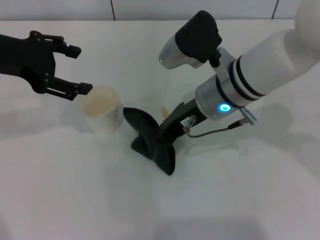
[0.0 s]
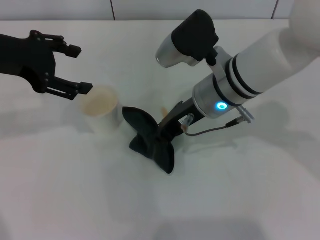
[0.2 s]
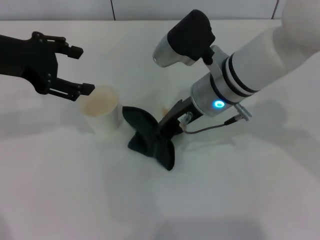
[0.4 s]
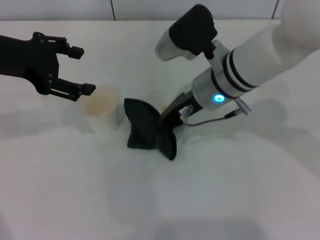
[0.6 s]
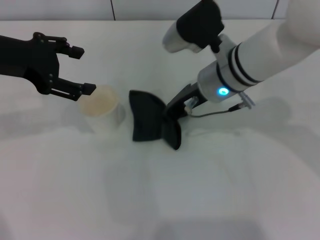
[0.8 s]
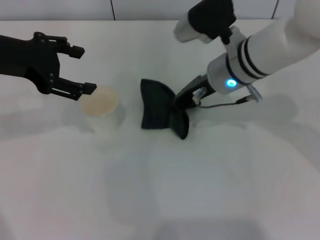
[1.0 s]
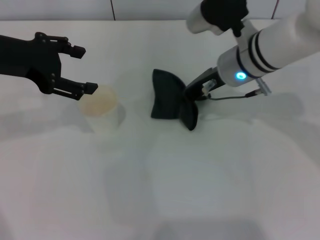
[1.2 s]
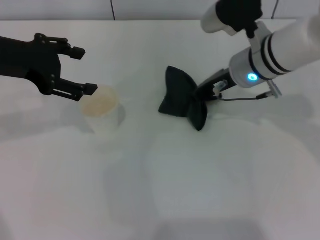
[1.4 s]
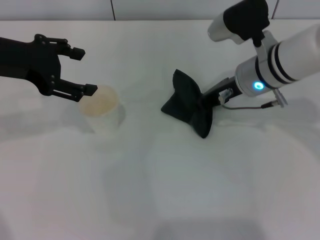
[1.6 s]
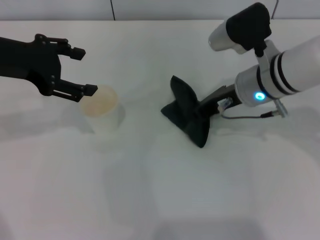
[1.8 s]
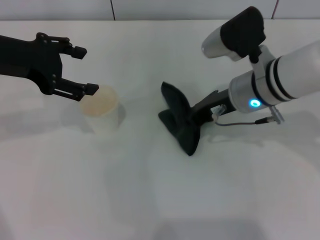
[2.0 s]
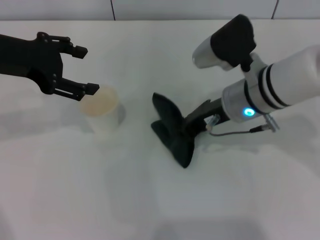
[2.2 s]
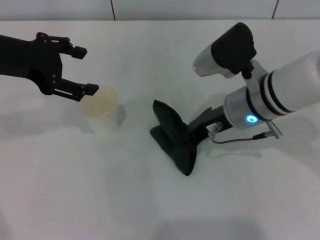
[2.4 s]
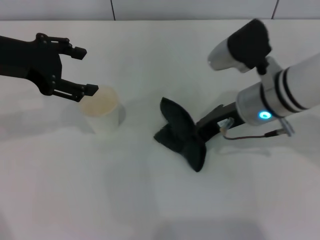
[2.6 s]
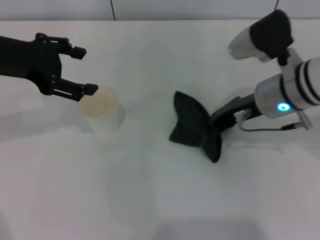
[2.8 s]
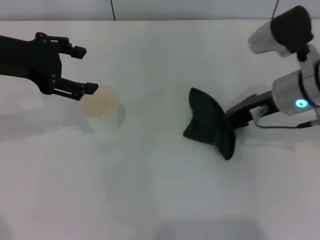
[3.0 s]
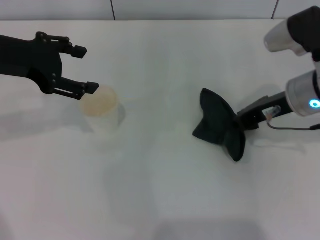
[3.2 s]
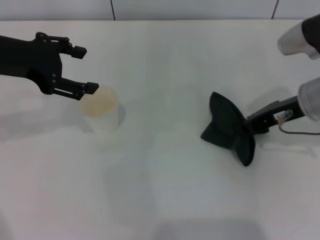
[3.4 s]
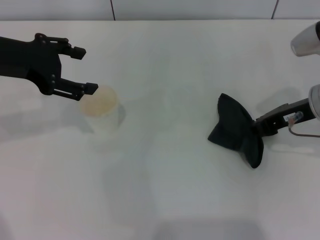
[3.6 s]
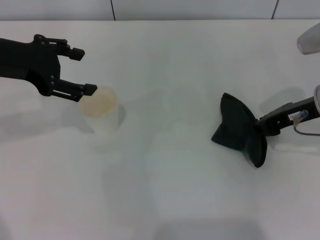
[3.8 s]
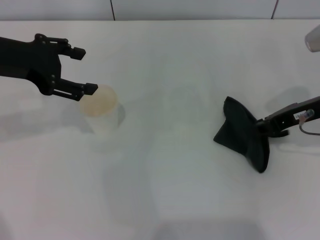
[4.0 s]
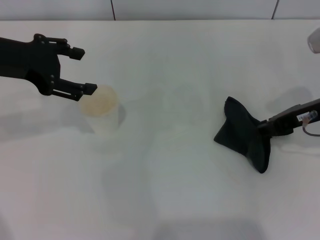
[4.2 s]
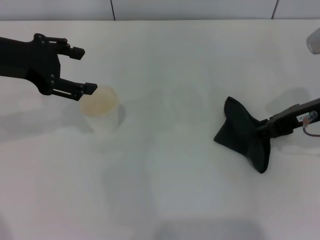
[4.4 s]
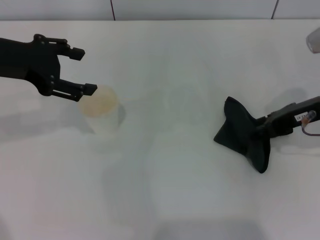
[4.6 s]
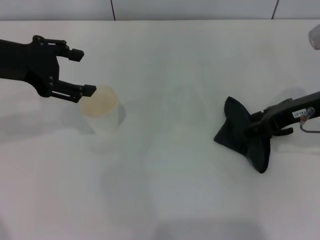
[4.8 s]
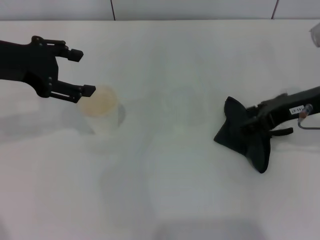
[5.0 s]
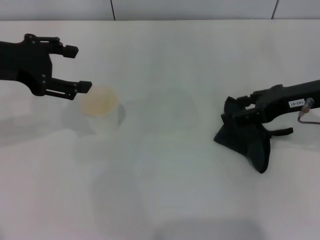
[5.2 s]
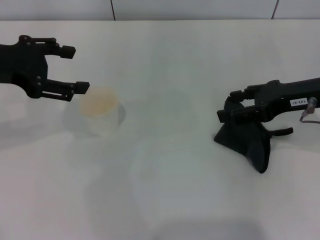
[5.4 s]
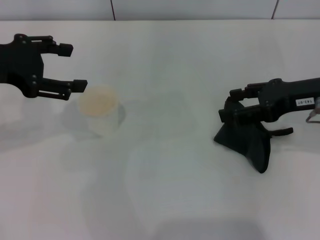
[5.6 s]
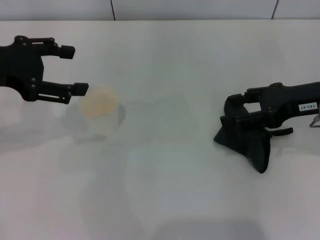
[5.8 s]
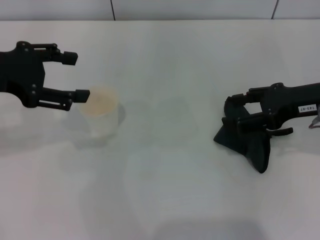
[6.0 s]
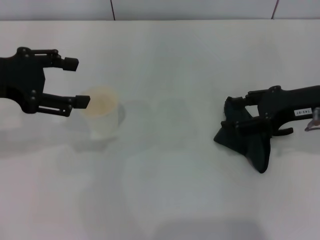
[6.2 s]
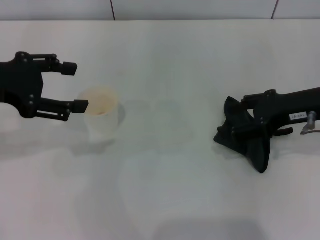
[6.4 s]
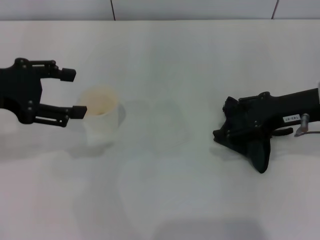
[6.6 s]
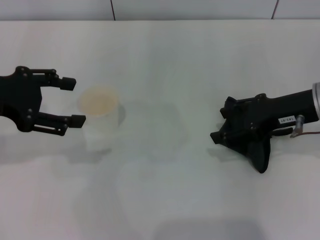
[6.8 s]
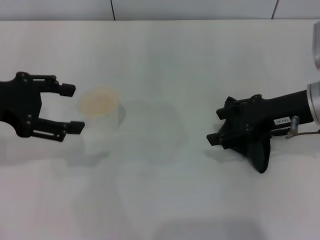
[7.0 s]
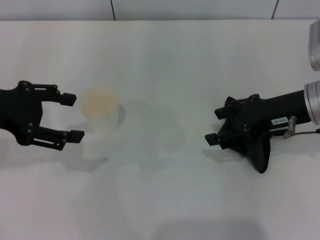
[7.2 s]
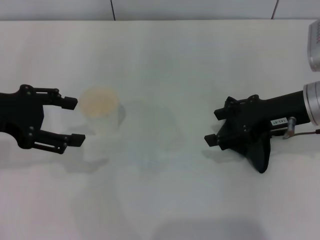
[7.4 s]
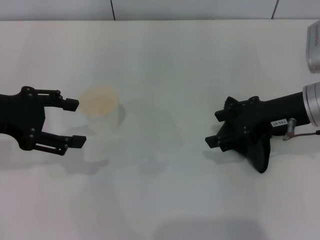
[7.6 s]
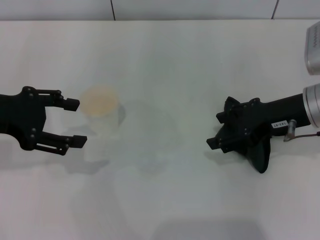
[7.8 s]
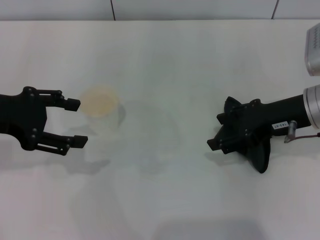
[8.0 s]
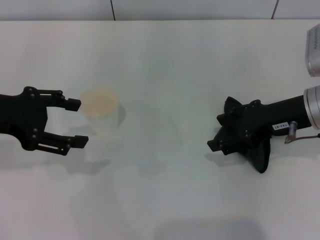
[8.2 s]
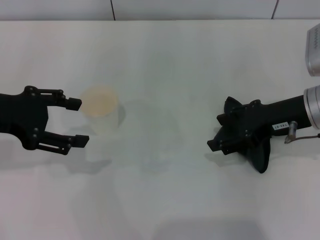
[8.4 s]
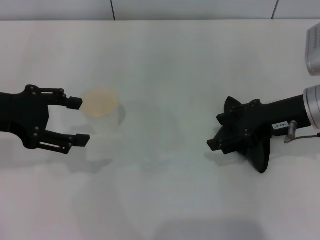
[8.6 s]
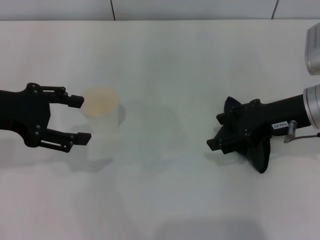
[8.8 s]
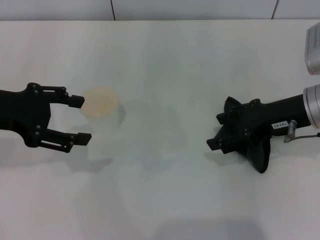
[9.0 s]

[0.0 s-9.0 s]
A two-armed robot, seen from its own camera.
Step, 0.0 to 3.8 s: Wipe the stains off the table with the right gripper.
Step, 4.0 to 5.2 s: Place the rag on the table with the right gripper.
0.0 to 1.6 s: The right gripper goes approximately 5 cm to the right.
1.6 to 3.0 s: The right gripper moves some 5 cm.
3.0 to 4.4 s: The right gripper travels to the right by about 5 cm.
4.4 to 6.0 s: The right gripper opens its fingers.
6.0 to 7.6 s: The grippers move only a little.
7.6 to 9.0 s: Both grippers stay put.
